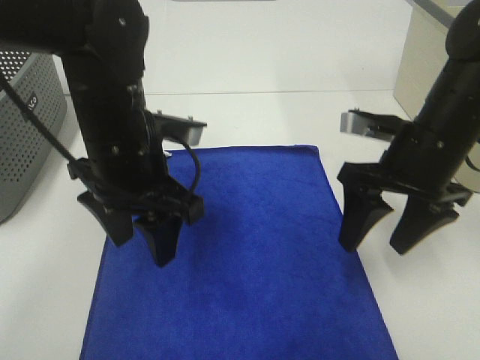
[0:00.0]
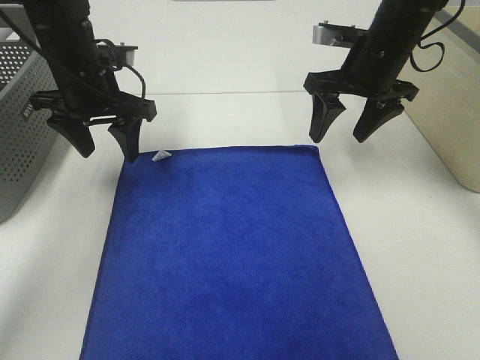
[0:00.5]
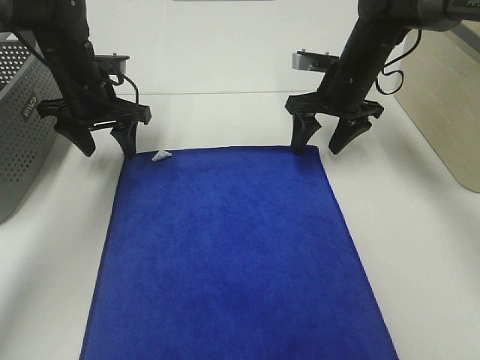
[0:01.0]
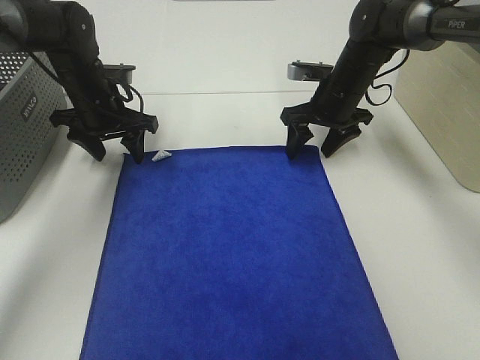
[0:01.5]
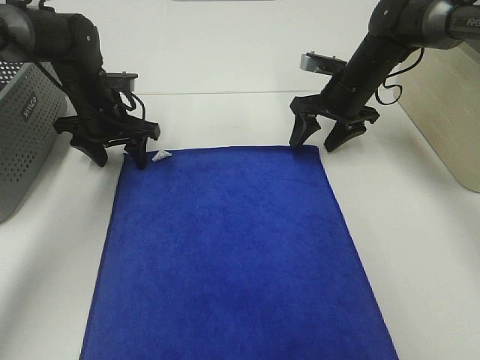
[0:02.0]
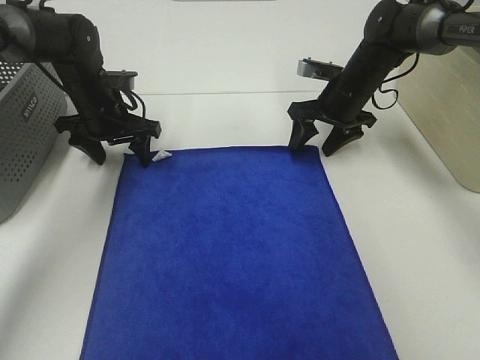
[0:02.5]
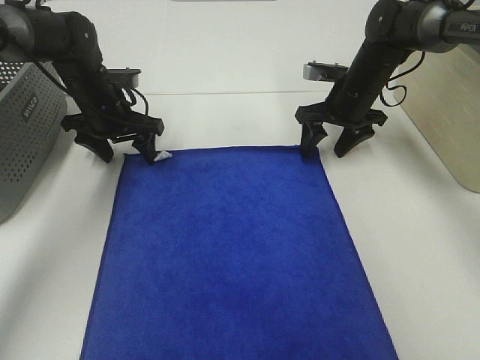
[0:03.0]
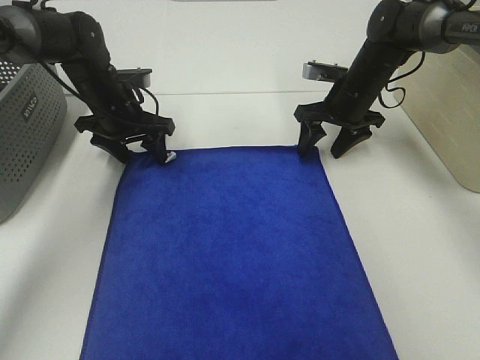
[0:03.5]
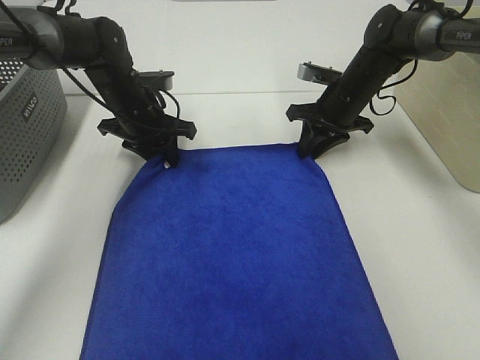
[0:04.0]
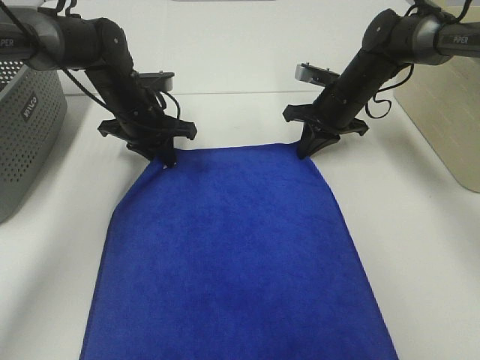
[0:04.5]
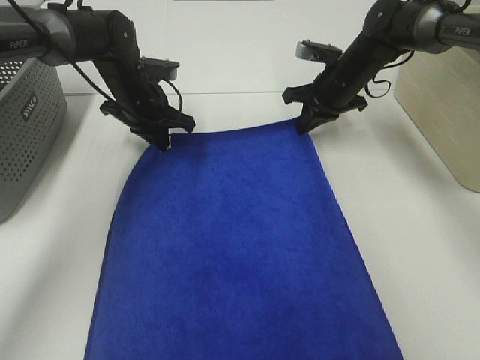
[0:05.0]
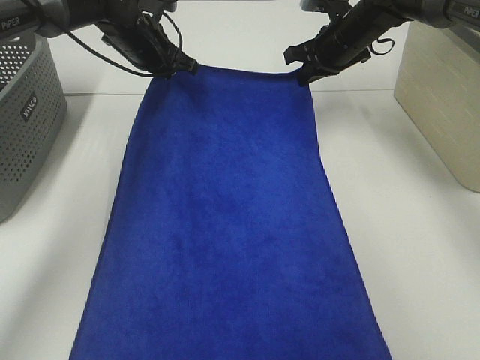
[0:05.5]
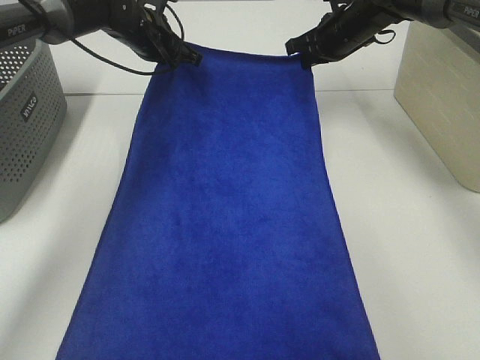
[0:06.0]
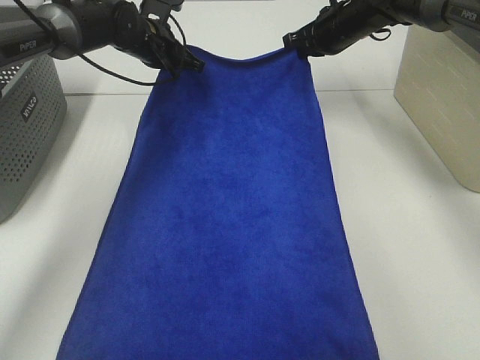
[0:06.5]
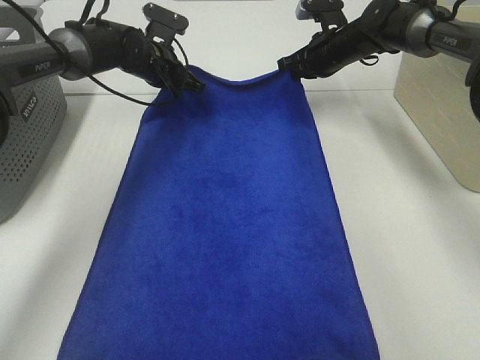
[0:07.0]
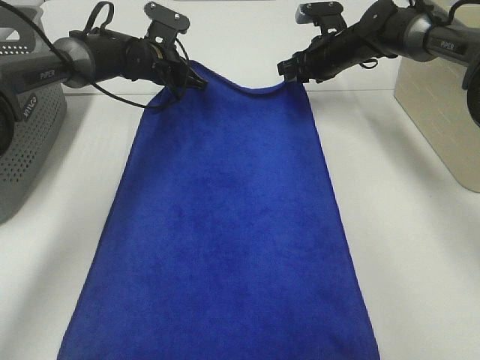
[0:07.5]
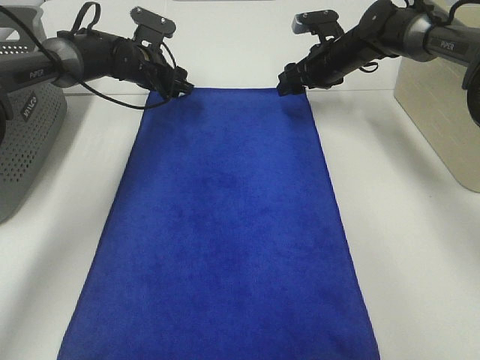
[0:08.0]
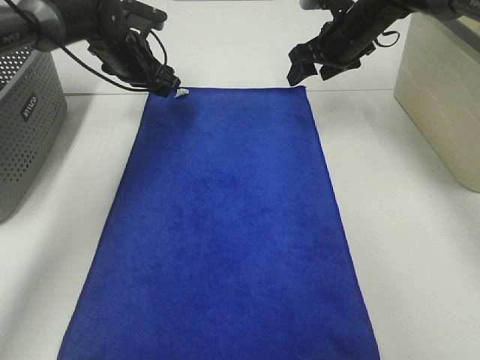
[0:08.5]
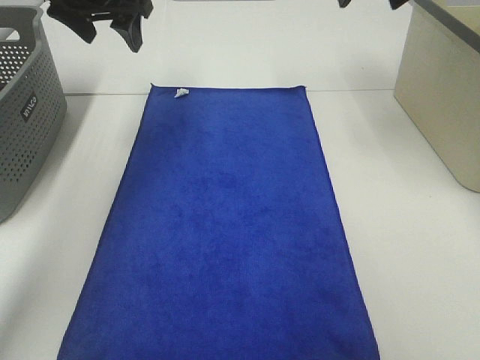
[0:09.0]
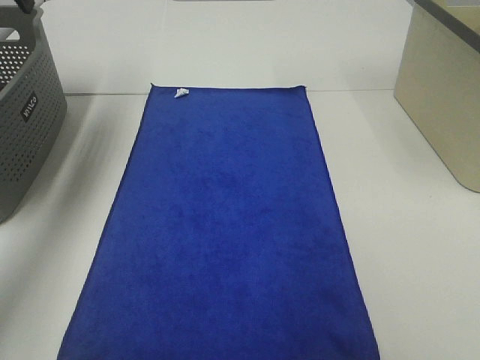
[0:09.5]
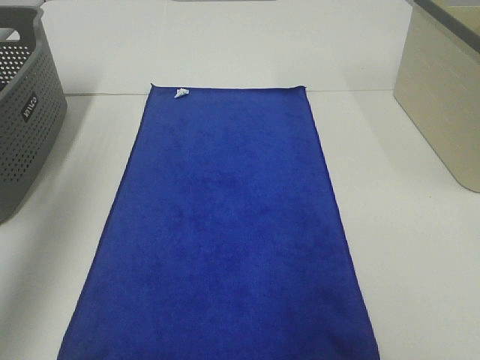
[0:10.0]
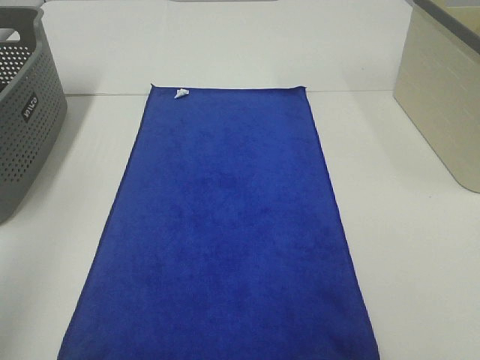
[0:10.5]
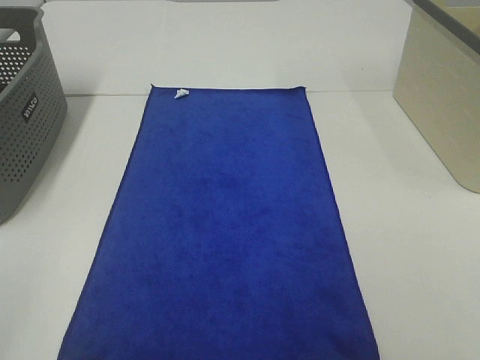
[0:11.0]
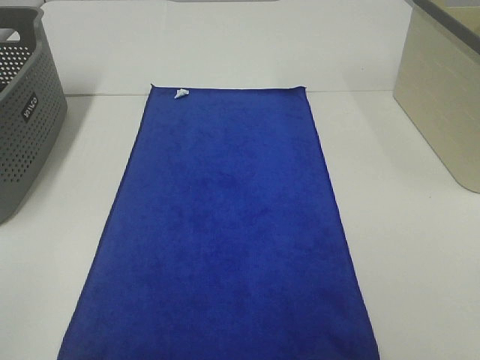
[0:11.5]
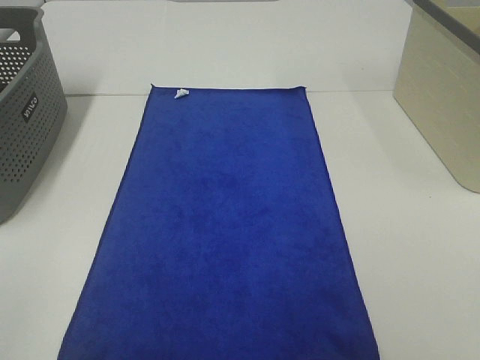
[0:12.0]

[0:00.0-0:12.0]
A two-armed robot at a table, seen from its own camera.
Task of the whole recording: Remove the towel and place it.
0:00.0 to 0:02.0: The left gripper goes roughly 25 cm forward, to the left and downward. The right gripper shifts about 20 cm forward.
0:02.0 to 0:04.0: The right gripper closes. The left gripper changes place by roughly 5 cm.
0:04.0 to 0:06.0: The two grippers go roughly 10 cm upward and forward. The left gripper closes; the right gripper closes up.
0:06.0 to 0:08.0: The grippers both shift downward by about 5 cm. The left gripper opens; the right gripper opens its fingers.
0:08.0 to 0:10.0: The left gripper moves backward, upward and to the left, approximately 40 cm. Meanwhile the right gripper is displaced backward and upward by some 50 cm.
0:10.0 to 0:12.0: The left gripper heads backward and downward, covering about 30 cm.

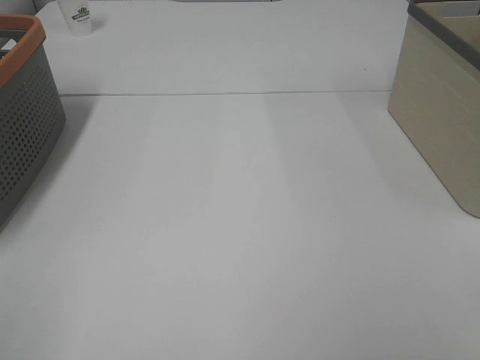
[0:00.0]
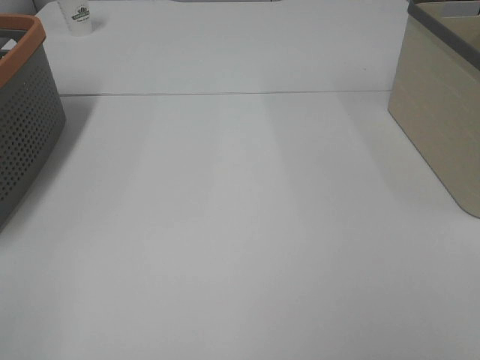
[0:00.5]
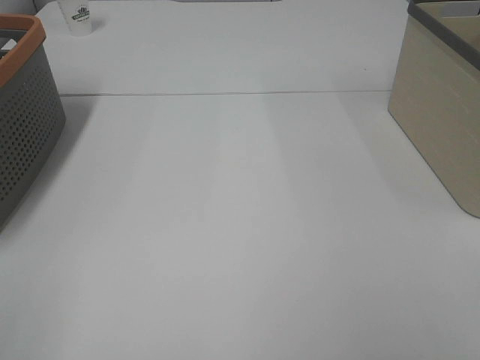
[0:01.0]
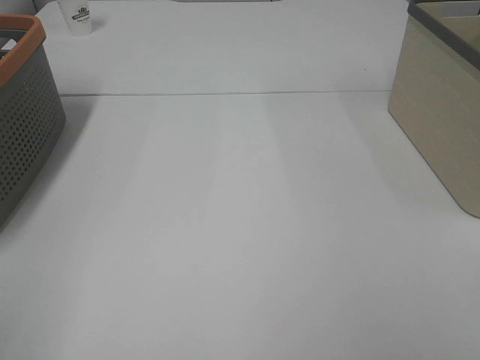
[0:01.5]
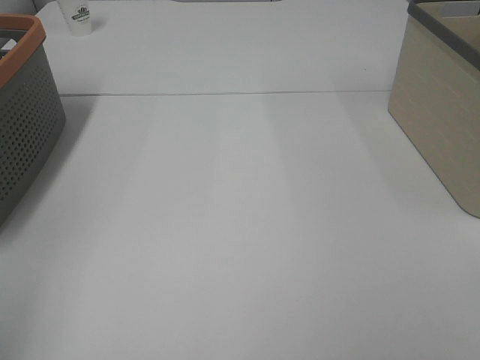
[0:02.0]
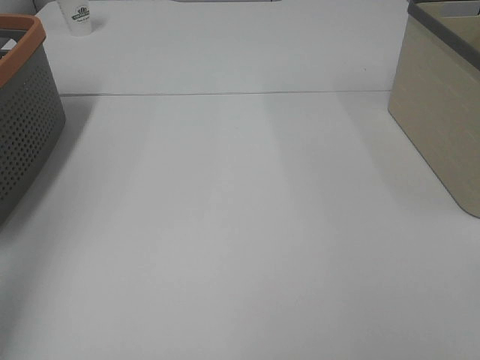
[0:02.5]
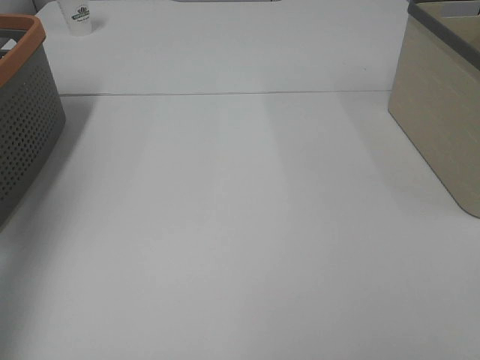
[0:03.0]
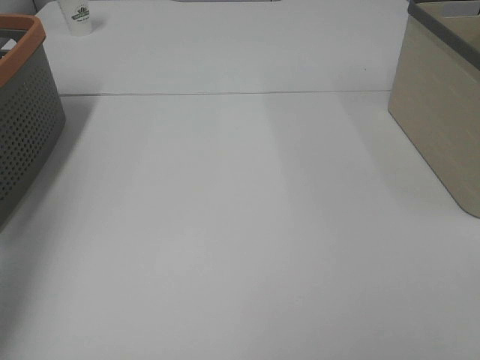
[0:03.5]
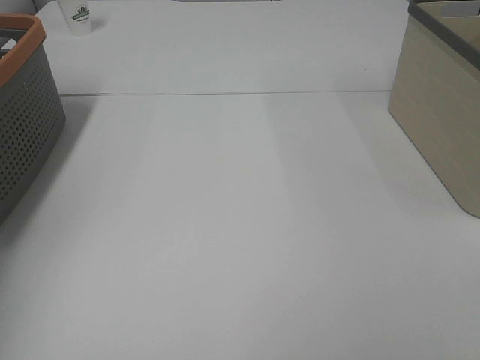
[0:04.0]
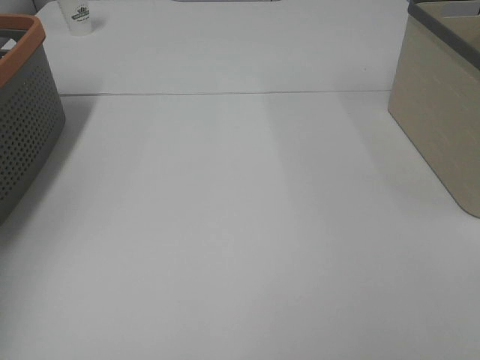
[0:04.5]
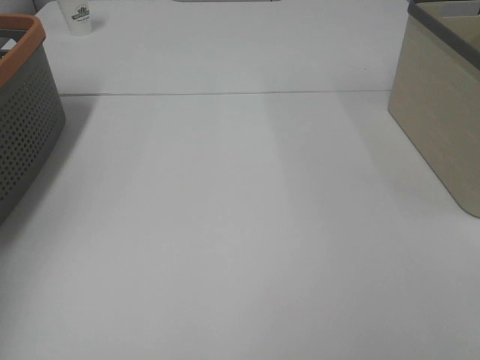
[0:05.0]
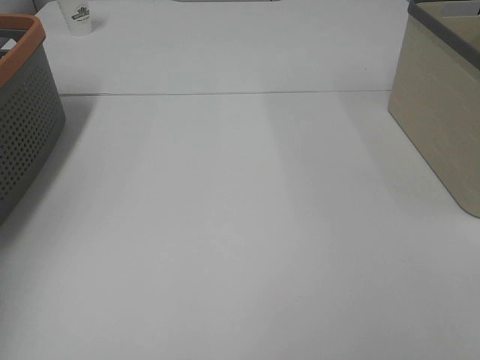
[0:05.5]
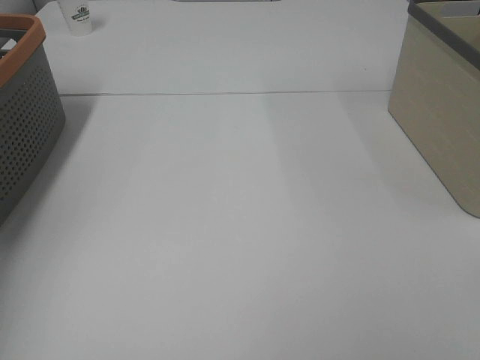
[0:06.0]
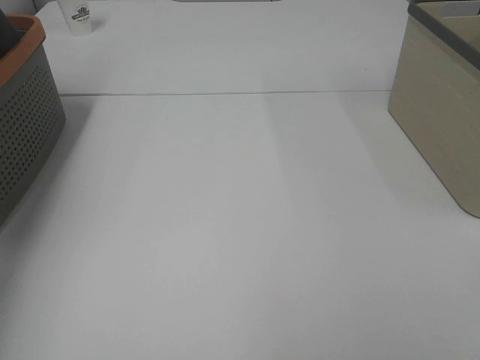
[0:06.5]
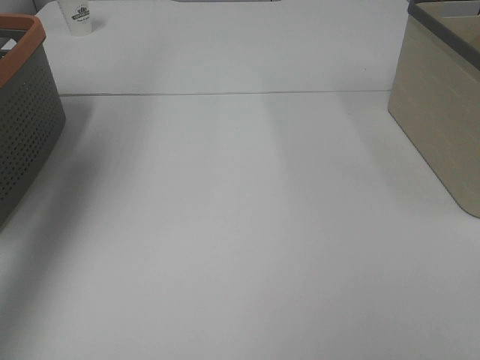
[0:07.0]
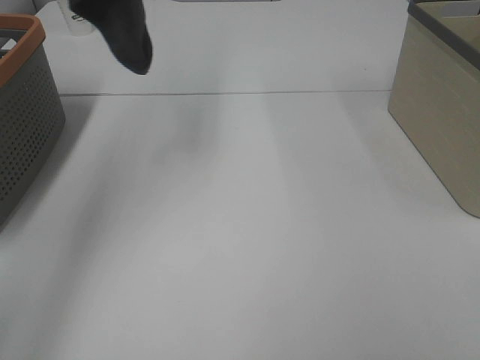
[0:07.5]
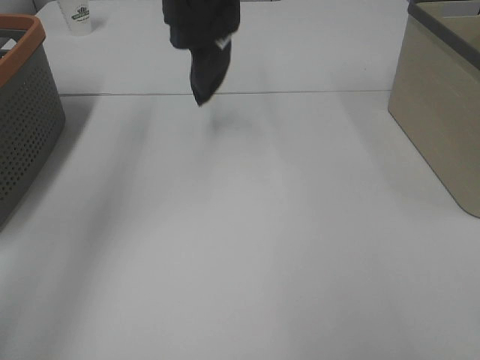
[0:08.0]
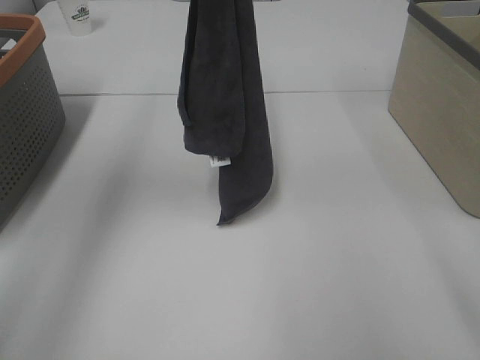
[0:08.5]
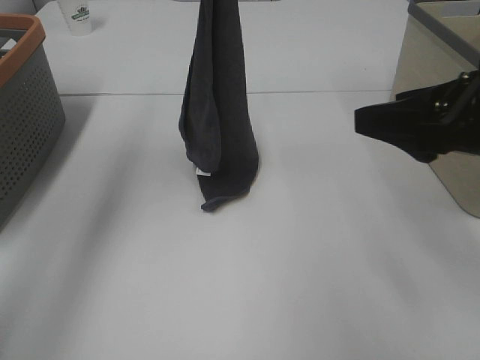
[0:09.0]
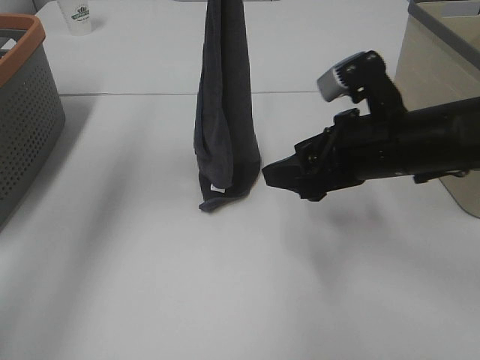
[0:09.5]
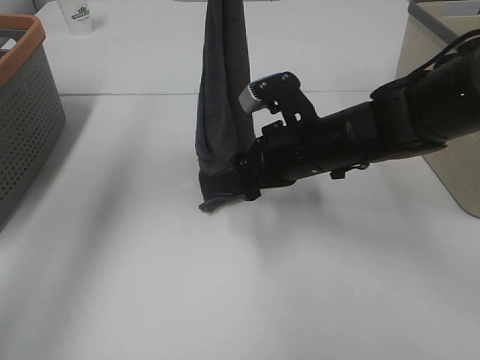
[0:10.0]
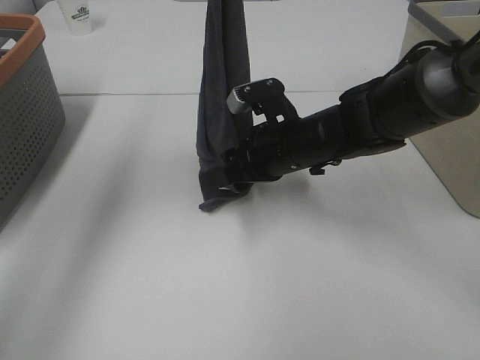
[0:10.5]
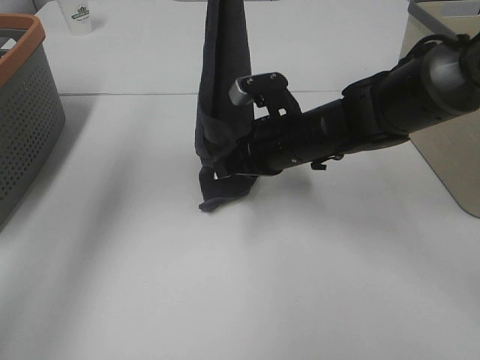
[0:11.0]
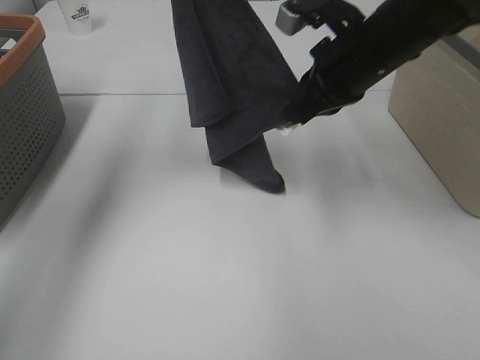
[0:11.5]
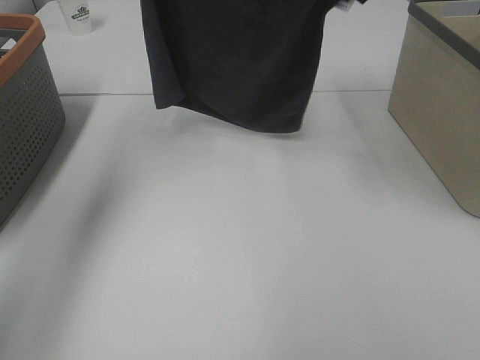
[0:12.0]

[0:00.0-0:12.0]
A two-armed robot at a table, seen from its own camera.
Task of the whole recording: Remove the towel and place it.
Step, 0:07.5 to 0:09.5: Right hand: grab a corner of the grey towel and straighten it.
0:06.0 to 0:08.0: The left gripper travels to the right and upward by approximately 30 cm.
0:08.0 to 0:10.0: The right gripper moves forward, to the left and downward, approximately 35 cm. Meanwhile the left gripper is displaced downward by roughly 10 cm.
0:10.0 to 0:12.0: The right gripper is displaced upward by about 25 cm, and closes up. The left gripper shifts about 5 cm forward.

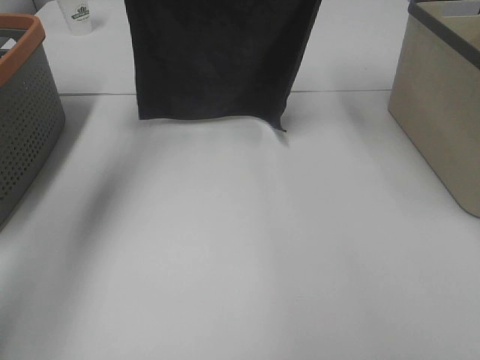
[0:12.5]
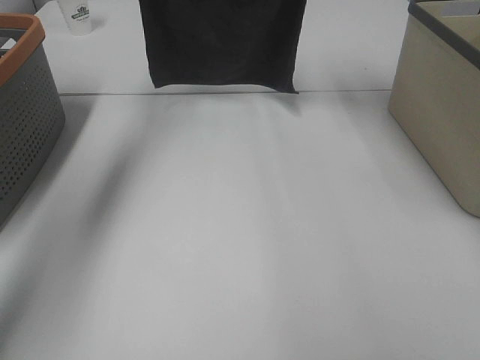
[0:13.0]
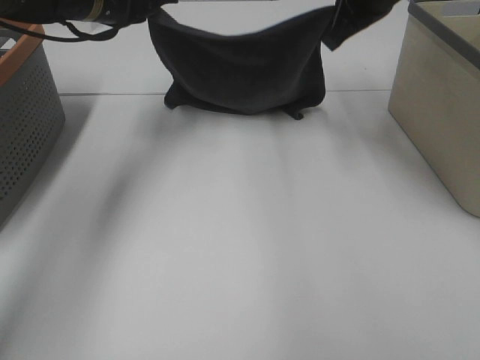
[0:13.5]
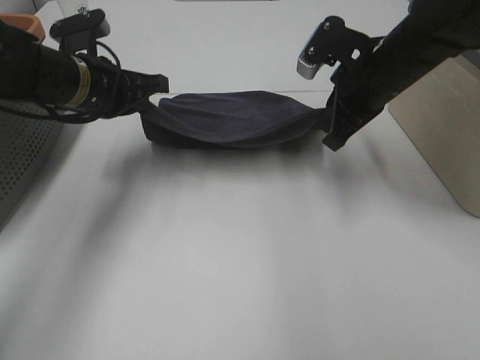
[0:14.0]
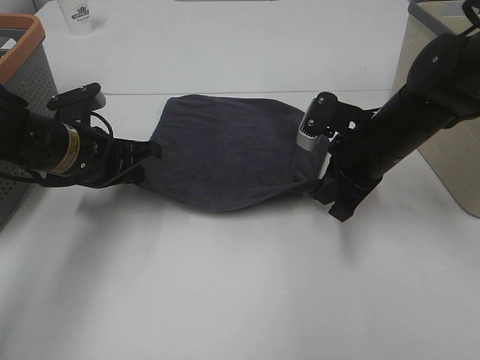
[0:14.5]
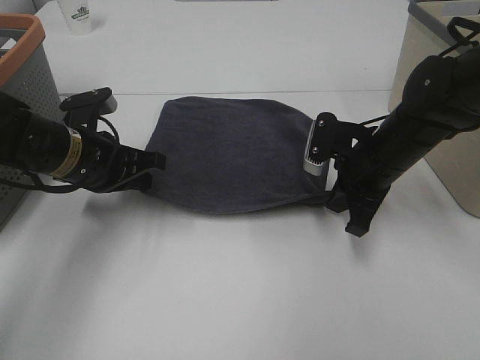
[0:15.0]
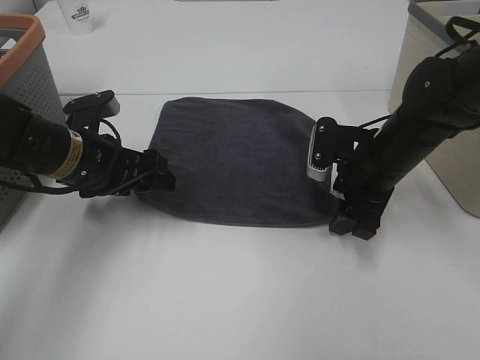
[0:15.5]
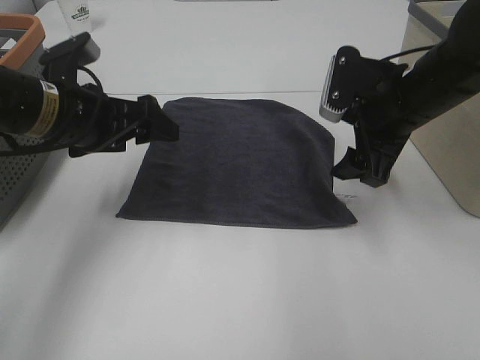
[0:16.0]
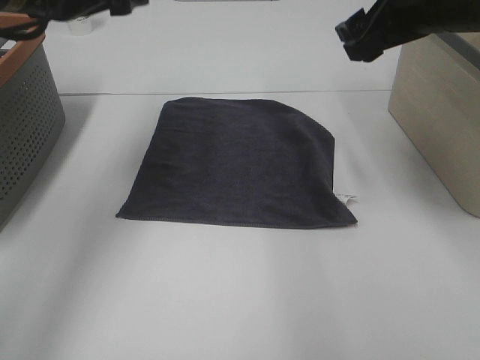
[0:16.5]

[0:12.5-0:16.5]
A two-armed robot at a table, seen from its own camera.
Task of the whole recording: Remove the towel and place it.
0:12.5 to 0:14.5: The grippers both shift downward and backward by some 25 cm.
0:14.5 to 0:16.5: The two grippers go about 15 cm upward. The left gripper opens its fingers, while the right gripper opens up.
